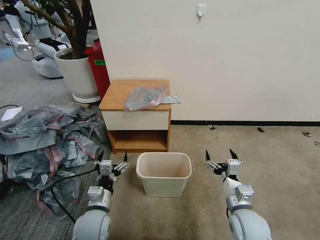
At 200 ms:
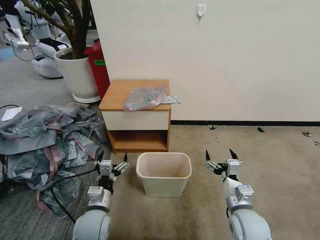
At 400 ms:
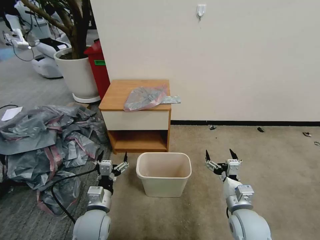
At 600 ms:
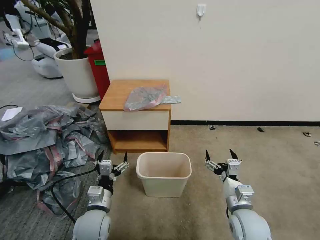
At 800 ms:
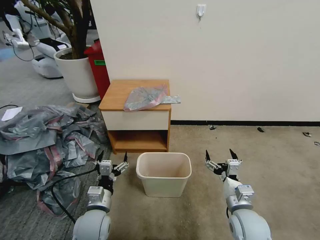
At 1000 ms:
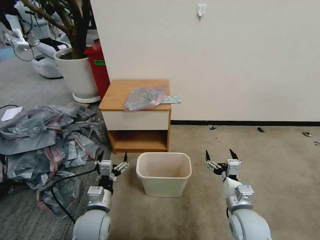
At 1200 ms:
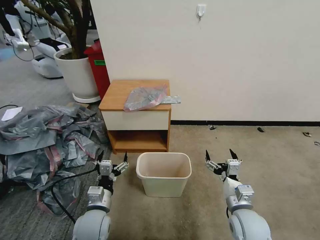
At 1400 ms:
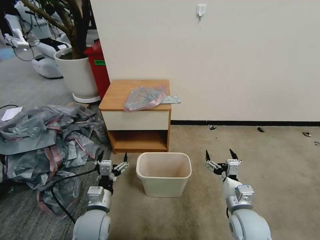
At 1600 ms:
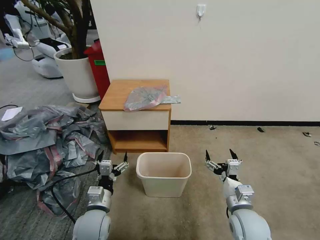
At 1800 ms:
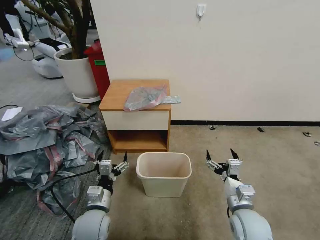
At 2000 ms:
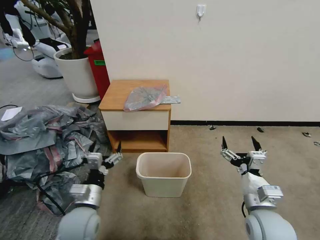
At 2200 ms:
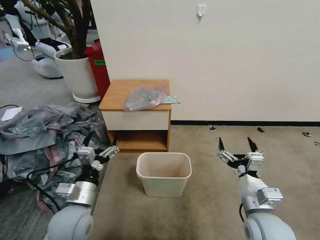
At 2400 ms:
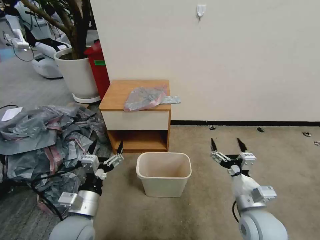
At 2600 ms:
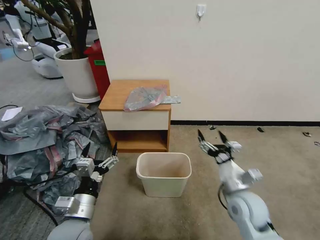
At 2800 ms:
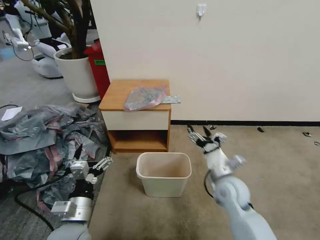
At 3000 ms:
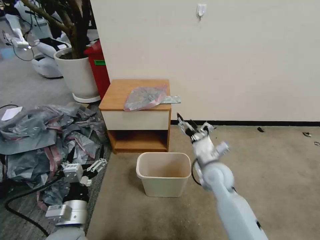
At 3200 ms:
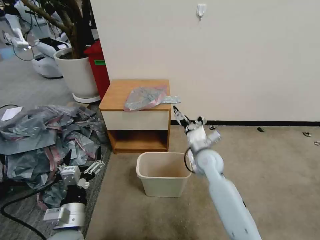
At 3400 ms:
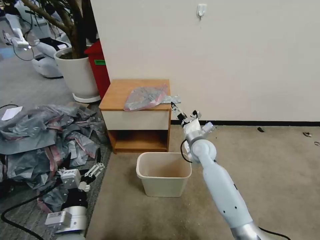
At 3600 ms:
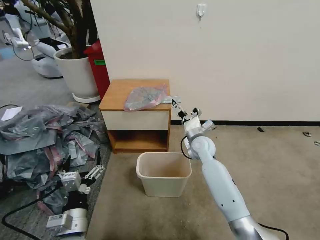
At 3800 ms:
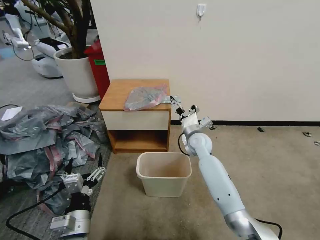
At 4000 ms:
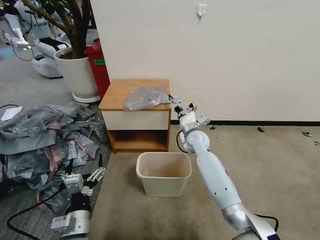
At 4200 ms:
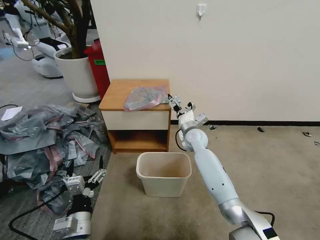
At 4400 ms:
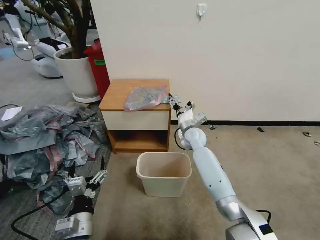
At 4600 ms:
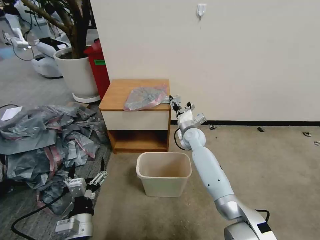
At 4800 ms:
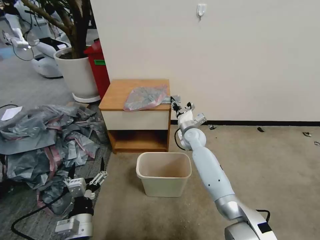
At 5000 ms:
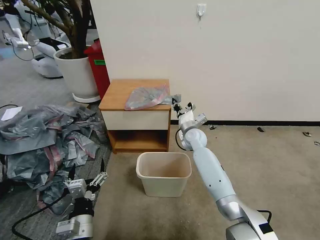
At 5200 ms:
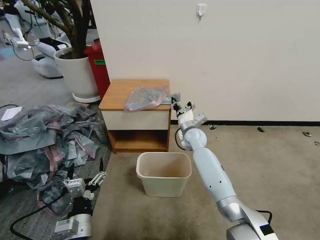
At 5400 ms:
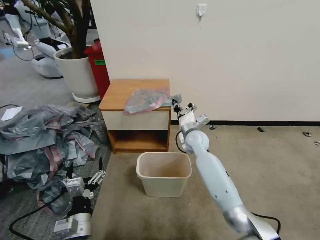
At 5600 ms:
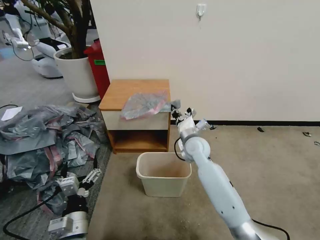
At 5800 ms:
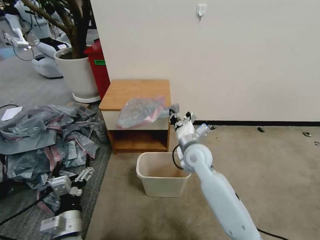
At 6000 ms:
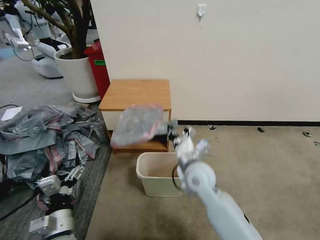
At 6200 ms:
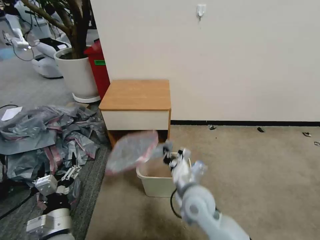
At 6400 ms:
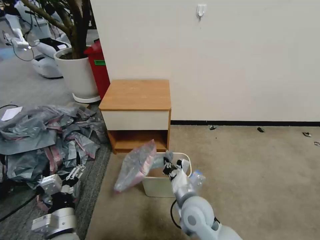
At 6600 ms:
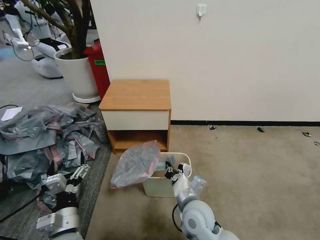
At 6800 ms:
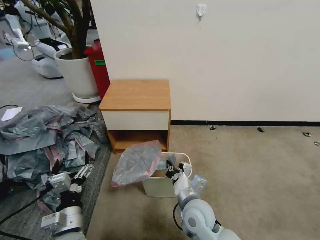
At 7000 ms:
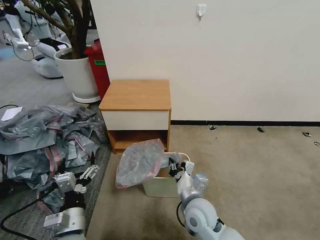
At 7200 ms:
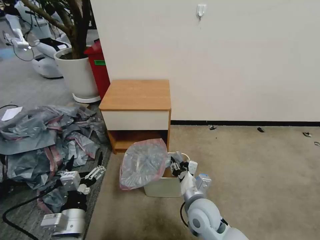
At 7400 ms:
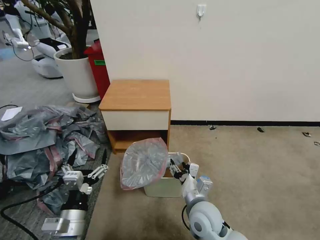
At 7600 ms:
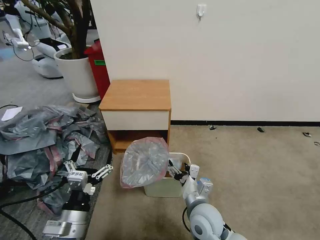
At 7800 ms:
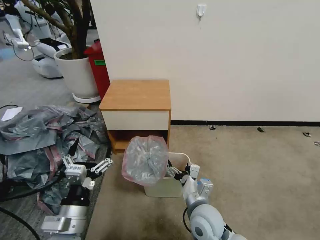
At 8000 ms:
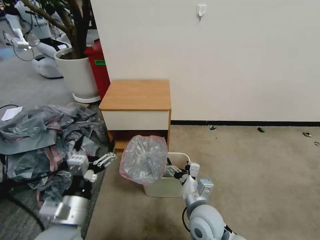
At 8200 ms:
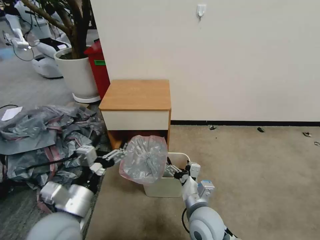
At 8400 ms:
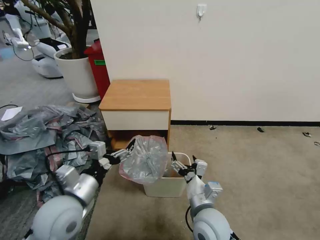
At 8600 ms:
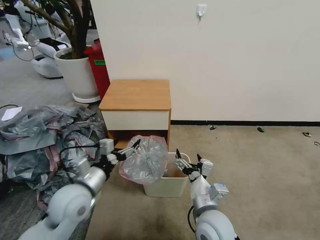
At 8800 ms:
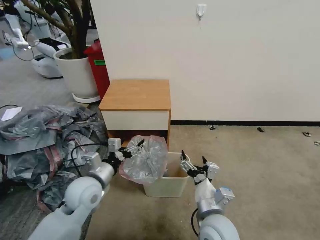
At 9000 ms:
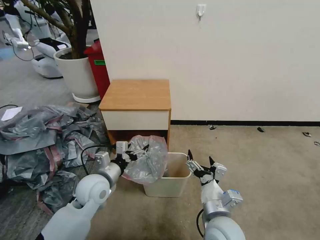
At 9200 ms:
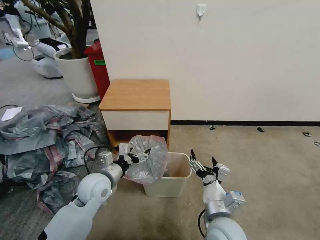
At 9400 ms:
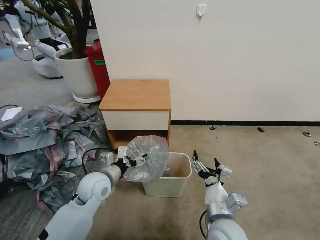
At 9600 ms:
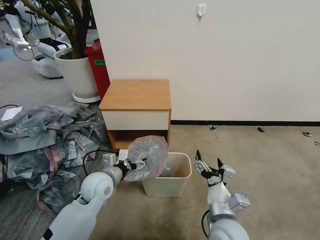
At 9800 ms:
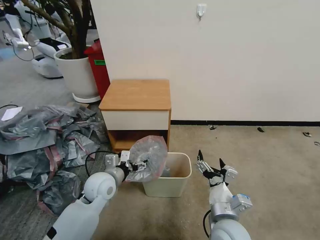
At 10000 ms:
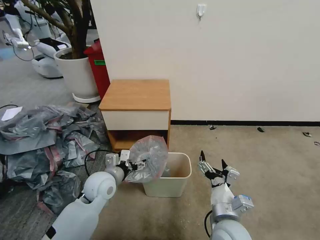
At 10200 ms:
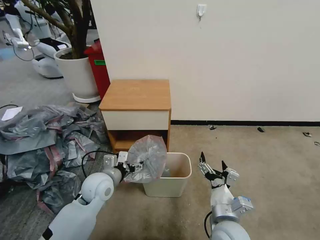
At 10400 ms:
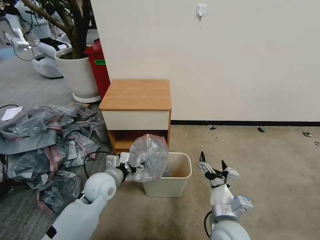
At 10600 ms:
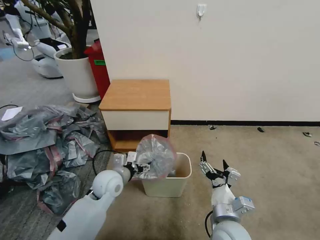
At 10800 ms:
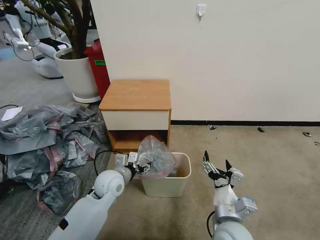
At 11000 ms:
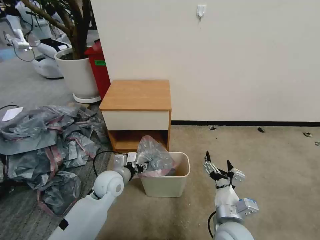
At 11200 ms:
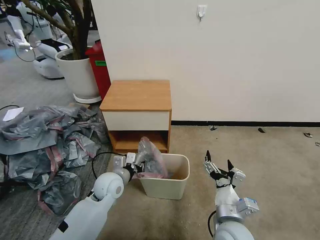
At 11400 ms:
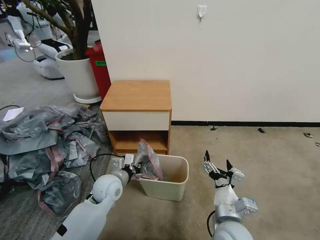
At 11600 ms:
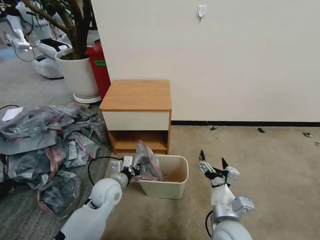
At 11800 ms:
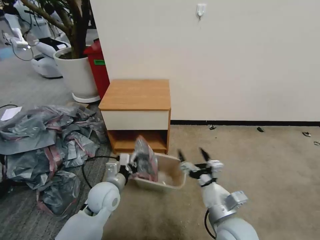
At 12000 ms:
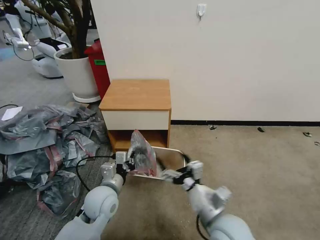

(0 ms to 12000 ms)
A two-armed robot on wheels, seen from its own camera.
Task of the whole recording: Pick up the garbage bag from the table and place it over the trash can.
1600 ms - 3000 ms: The right gripper moves forward and to the left, roughly 15 cm. Meanwhile the left gripper heads upward and backward, covering roughly 10 cm.
3000 ms - 4400 ms: The right gripper moves forward, about 20 cm, and closes up.
4400 ms - 6000 ms: The right gripper shifts about 20 cm backward, and closes.
6000 ms - 7600 ms: The right gripper is displaced backward and downward by roughly 15 cm, and opens.
7600 ms - 9000 ms: The right gripper shifts by about 5 cm. The left gripper shifts roughly 15 cm forward.
10400 ms - 12000 ms: The left gripper heads backward, covering about 5 cm, and closes its fingers. Meanwhile the right gripper changes place by some 5 cm.

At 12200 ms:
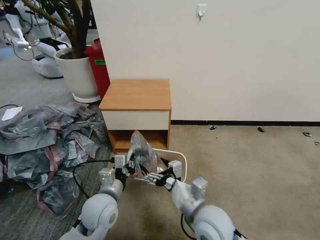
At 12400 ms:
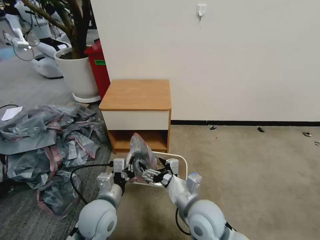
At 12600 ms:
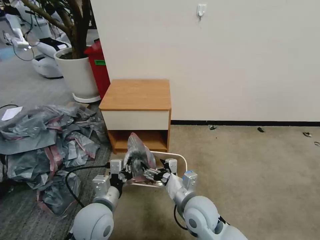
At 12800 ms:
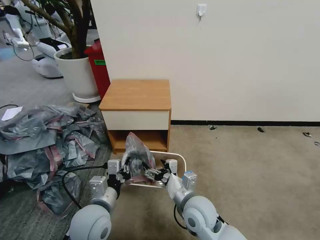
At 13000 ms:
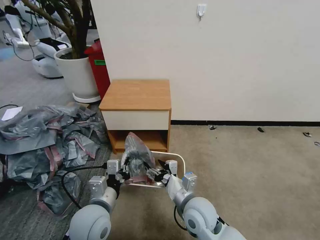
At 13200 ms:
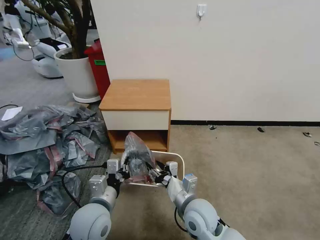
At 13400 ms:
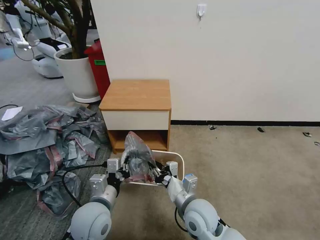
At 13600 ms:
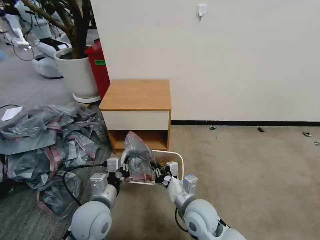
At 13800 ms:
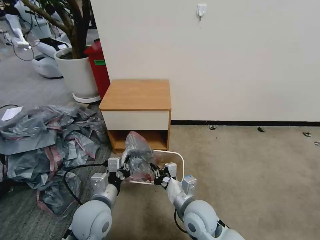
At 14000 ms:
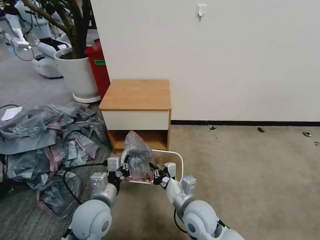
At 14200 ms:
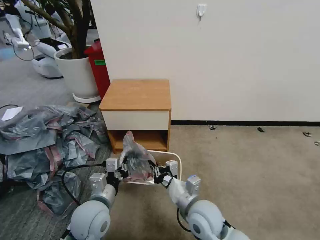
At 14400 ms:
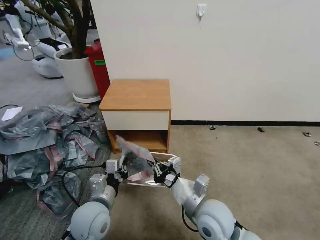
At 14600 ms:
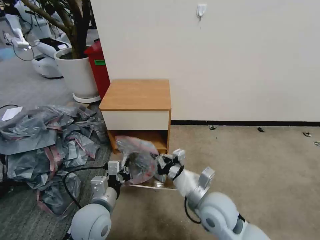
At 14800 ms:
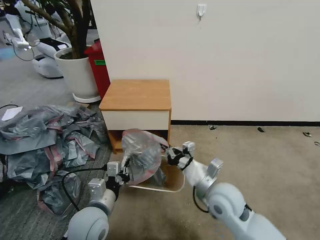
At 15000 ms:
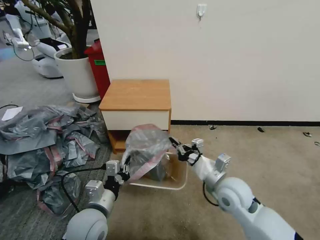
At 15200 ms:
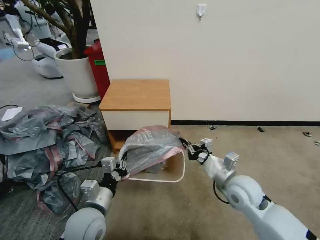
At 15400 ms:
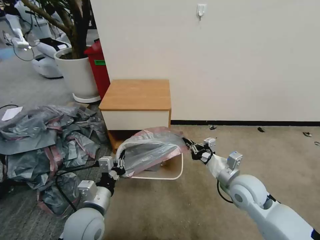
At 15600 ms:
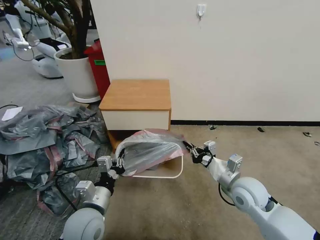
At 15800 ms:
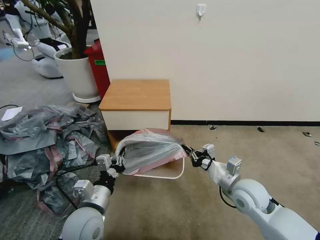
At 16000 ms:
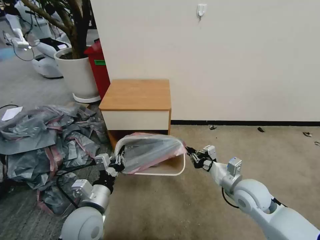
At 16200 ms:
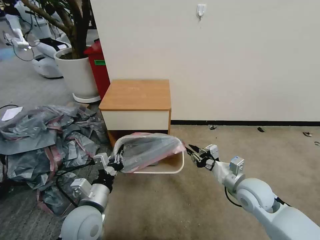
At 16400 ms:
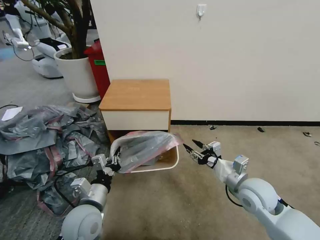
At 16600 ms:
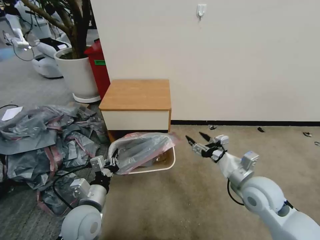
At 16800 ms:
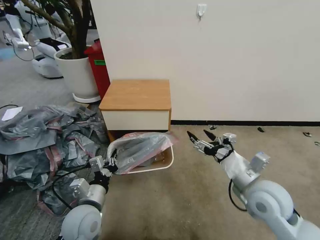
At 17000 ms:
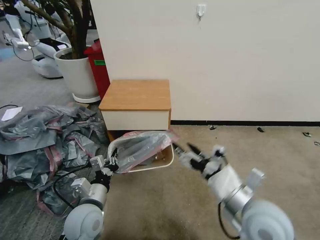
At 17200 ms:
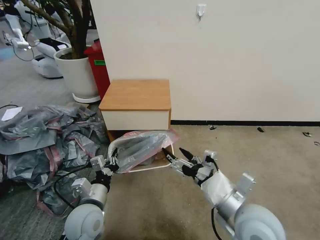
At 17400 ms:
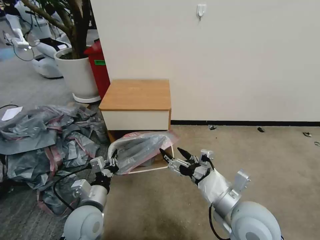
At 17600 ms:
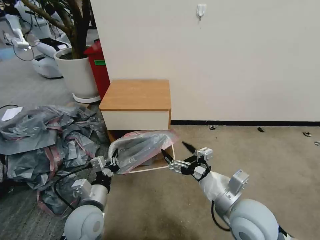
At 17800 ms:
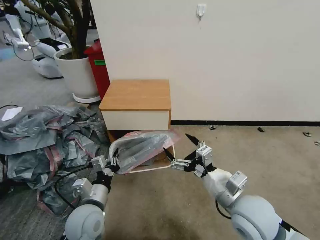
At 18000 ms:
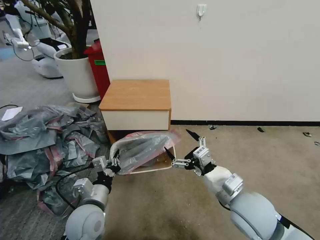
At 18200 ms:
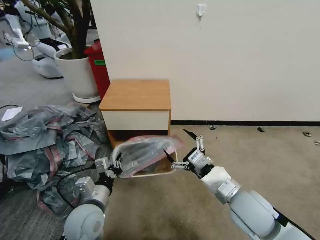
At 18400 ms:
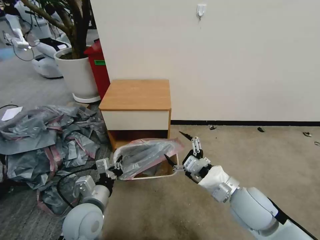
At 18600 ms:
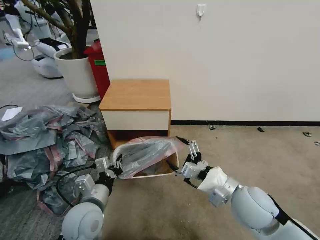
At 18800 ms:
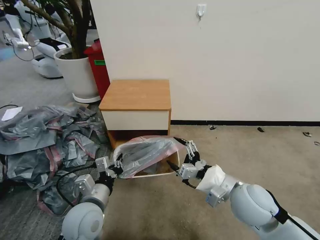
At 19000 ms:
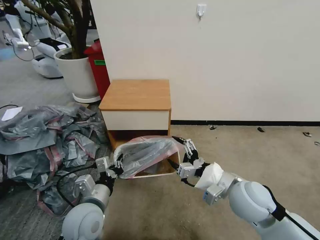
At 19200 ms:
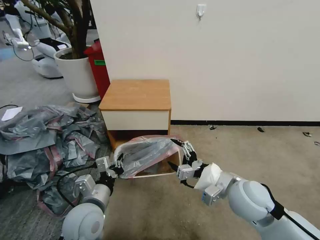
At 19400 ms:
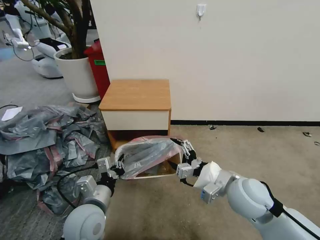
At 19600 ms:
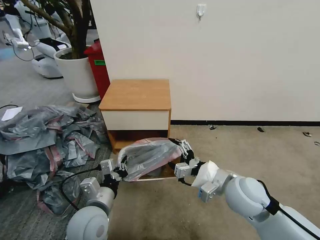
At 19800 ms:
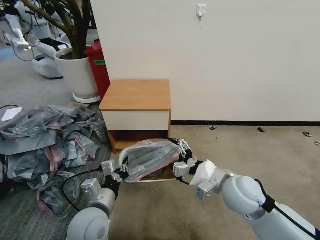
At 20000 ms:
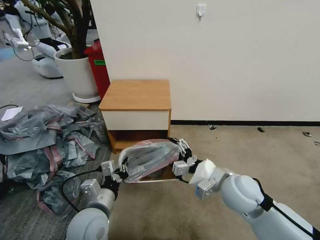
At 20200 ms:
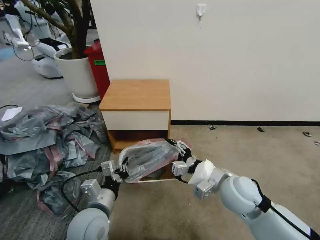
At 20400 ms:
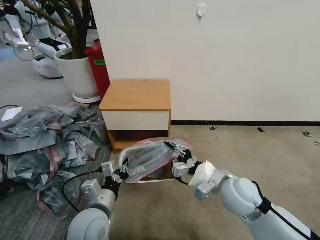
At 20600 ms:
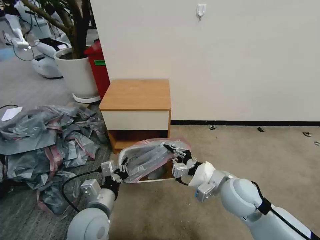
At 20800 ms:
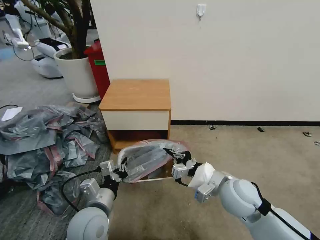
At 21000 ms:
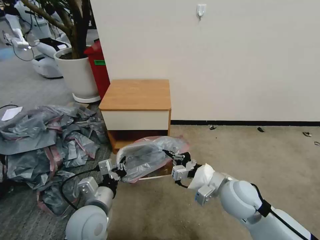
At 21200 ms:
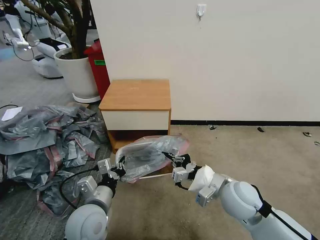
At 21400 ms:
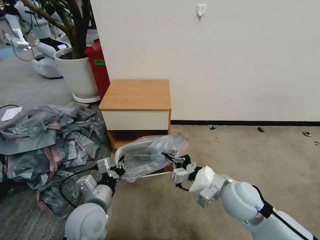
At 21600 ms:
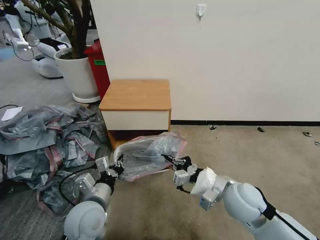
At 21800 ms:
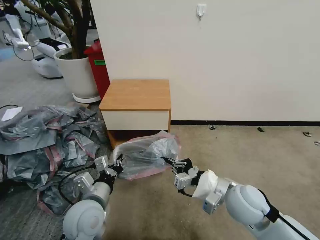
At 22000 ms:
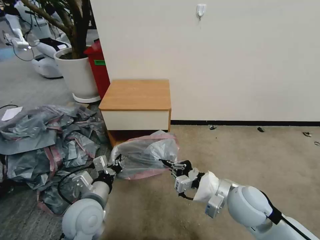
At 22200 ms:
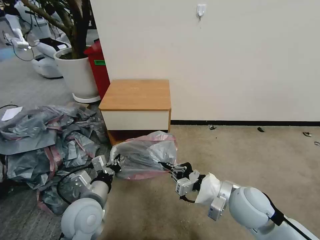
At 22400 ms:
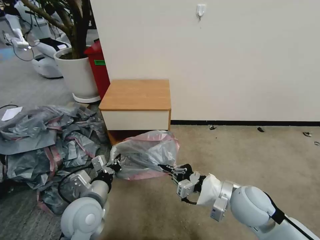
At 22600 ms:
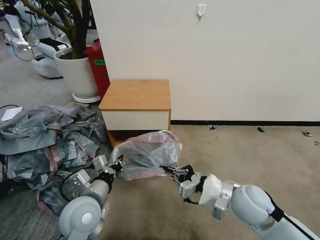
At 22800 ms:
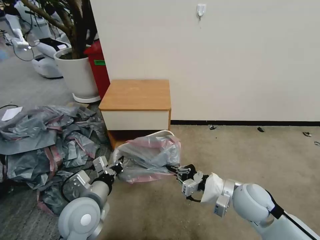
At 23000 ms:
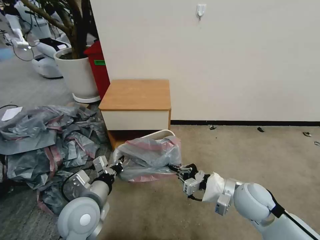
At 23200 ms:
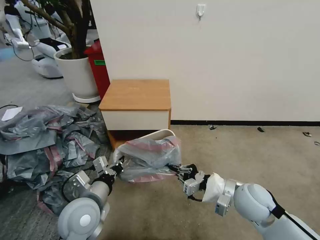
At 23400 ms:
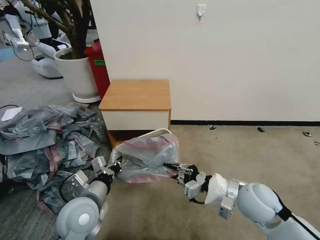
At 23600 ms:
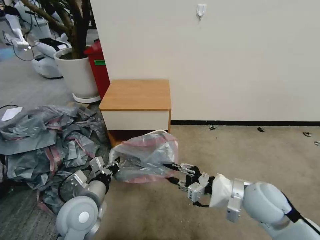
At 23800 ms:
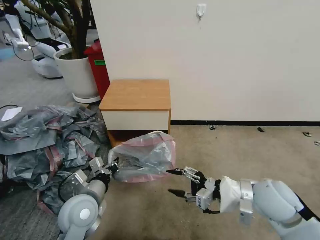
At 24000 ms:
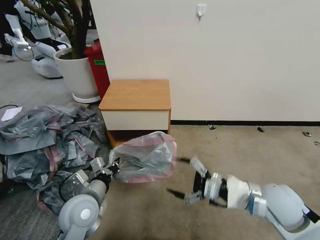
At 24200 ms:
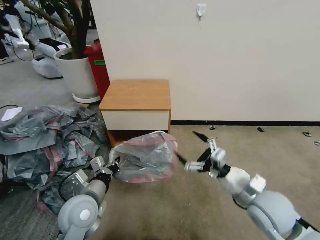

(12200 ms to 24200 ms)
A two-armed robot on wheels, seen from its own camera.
Task of the whole recording: Pick up the garbage bag from the table and place it over the trash can.
12200 ms - 13800 ms: The right gripper travels downward by some 5 cm, and closes.
13800 ms - 15200 ms: The right gripper goes approximately 15 cm to the right and forward.
15200 ms - 16600 ms: The right gripper opens its fingers.
16600 ms - 18200 ms: The right gripper goes about 5 cm to the left.
19800 ms - 21200 ms: The right gripper closes up.
21200 ms - 22600 ms: There are only small adjustments of the grippers.
22600 ms - 24200 ms: The right gripper opens its fingers.
